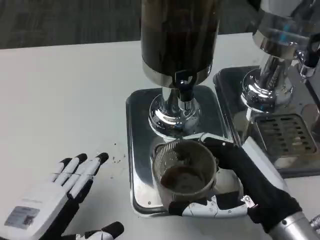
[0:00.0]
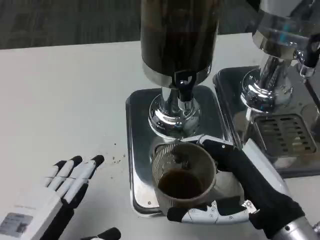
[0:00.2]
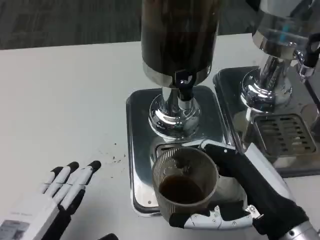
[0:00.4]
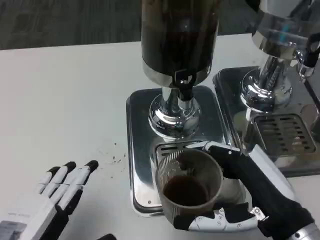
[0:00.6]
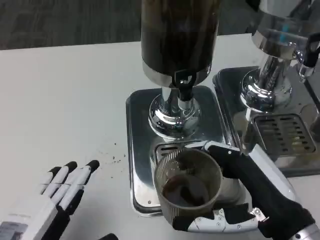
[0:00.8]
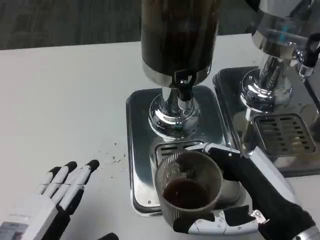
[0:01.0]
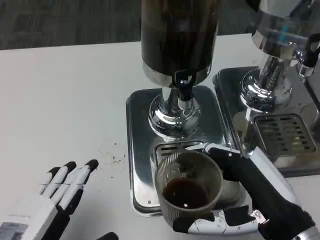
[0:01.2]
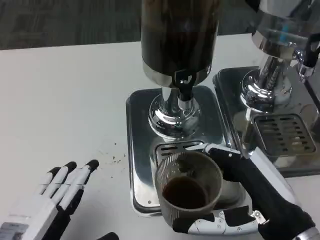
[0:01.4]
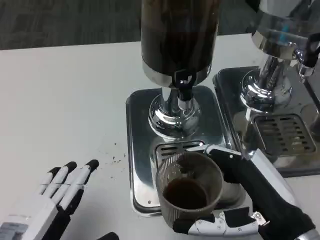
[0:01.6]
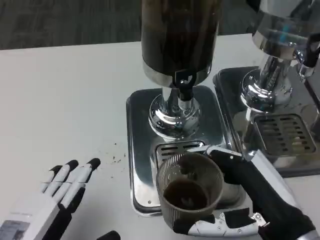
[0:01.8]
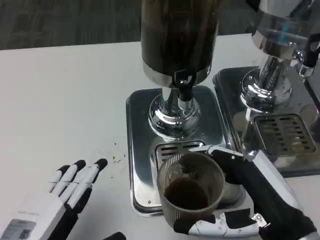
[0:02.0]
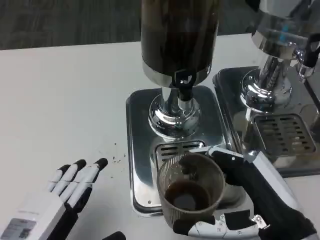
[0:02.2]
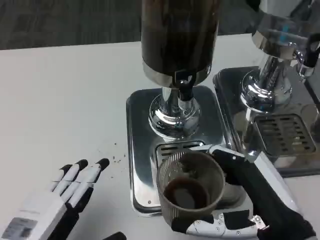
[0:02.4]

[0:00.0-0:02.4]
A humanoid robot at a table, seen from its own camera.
Task of the whole recording: Grasp the cup under the faucet to collect the drink, then remove the cup.
0:00.0 to 0:01.2: There are only small adjustments of the hands.
0:01.2 to 0:02.4: Both hands stay put.

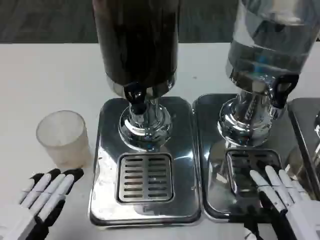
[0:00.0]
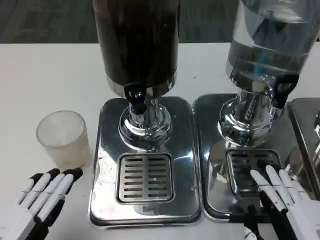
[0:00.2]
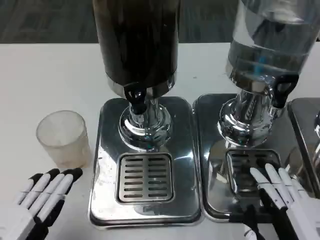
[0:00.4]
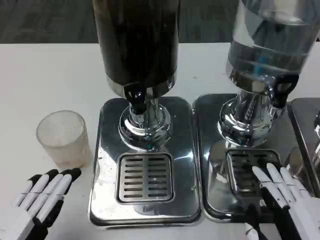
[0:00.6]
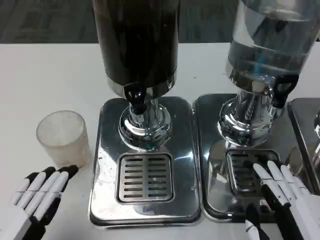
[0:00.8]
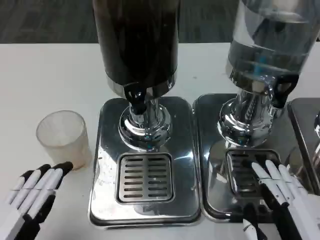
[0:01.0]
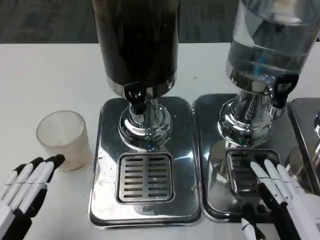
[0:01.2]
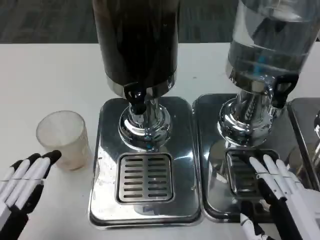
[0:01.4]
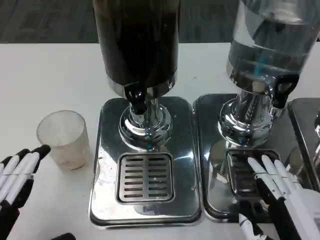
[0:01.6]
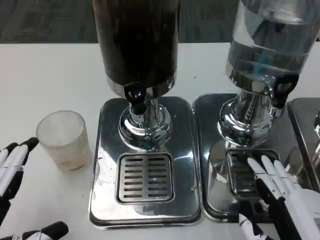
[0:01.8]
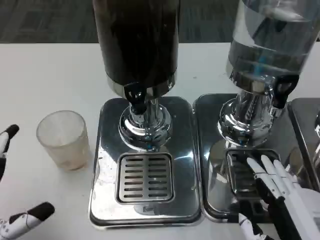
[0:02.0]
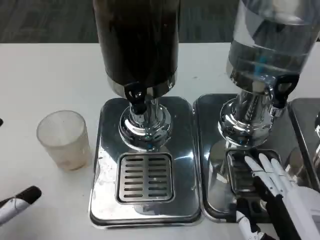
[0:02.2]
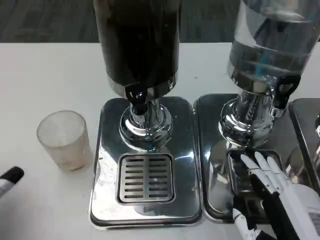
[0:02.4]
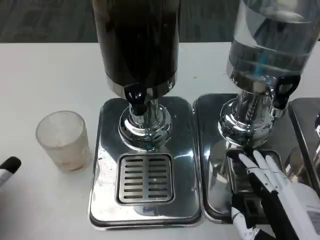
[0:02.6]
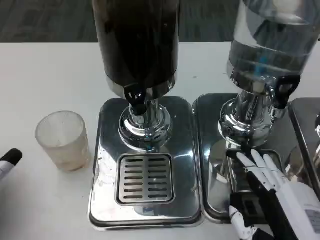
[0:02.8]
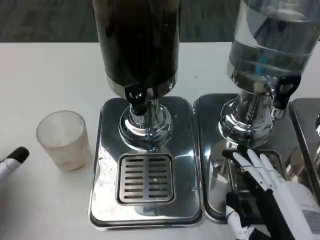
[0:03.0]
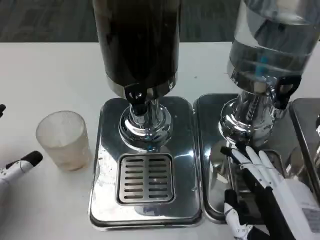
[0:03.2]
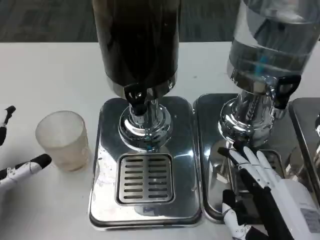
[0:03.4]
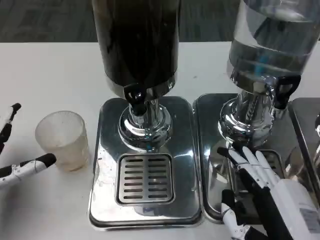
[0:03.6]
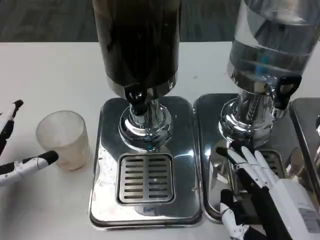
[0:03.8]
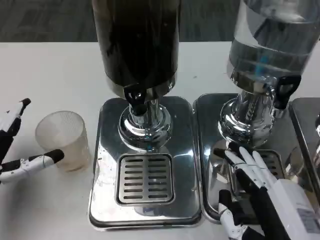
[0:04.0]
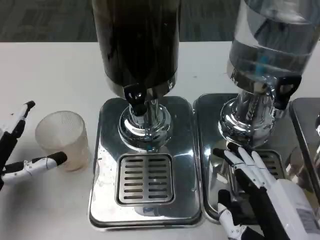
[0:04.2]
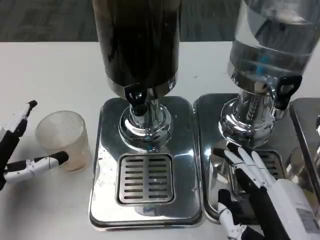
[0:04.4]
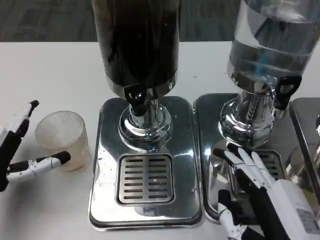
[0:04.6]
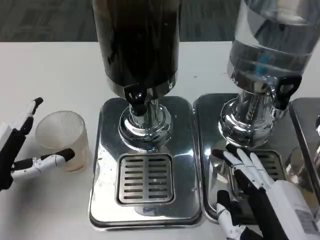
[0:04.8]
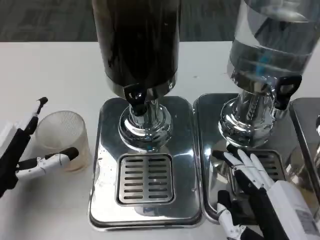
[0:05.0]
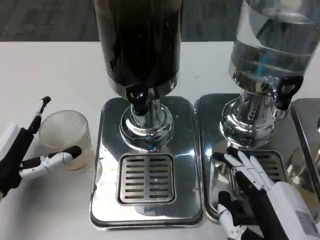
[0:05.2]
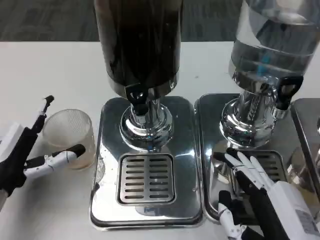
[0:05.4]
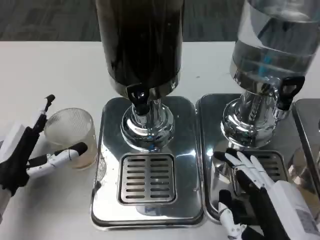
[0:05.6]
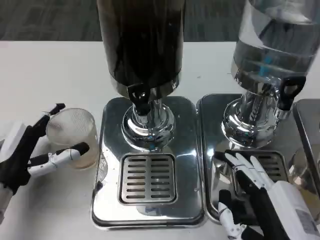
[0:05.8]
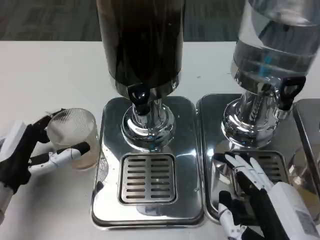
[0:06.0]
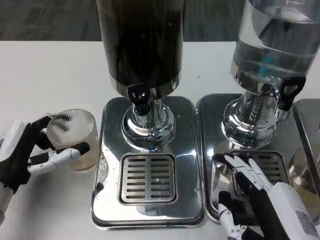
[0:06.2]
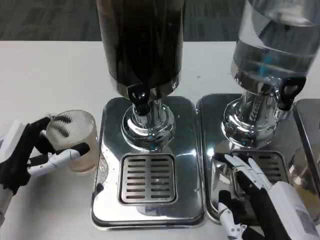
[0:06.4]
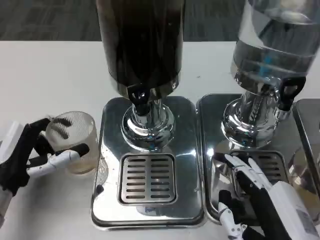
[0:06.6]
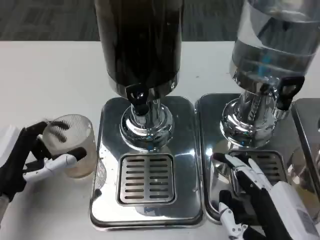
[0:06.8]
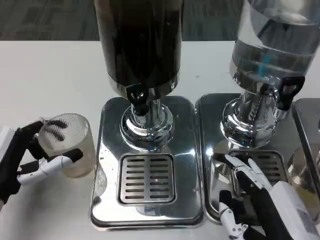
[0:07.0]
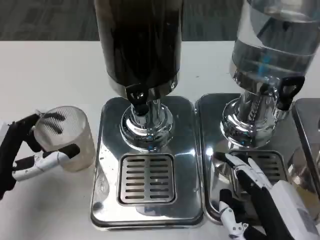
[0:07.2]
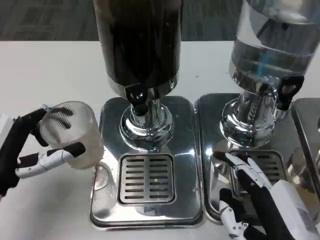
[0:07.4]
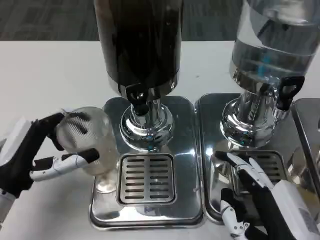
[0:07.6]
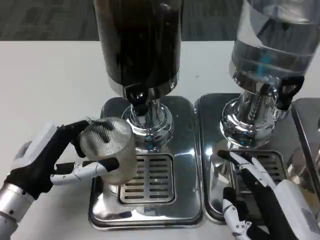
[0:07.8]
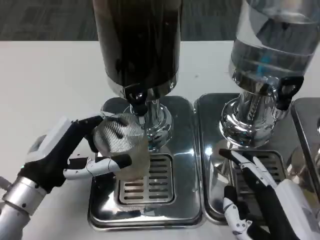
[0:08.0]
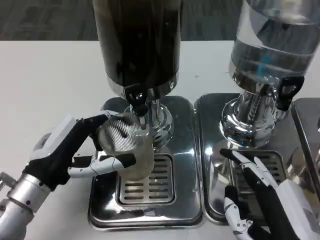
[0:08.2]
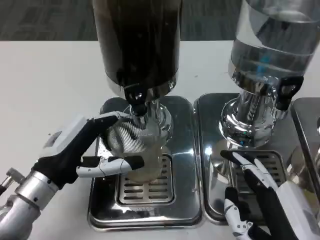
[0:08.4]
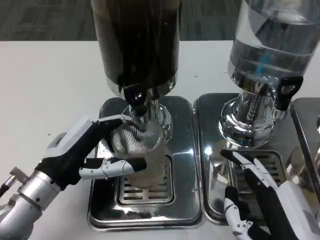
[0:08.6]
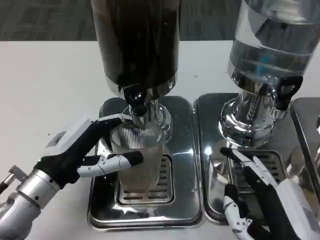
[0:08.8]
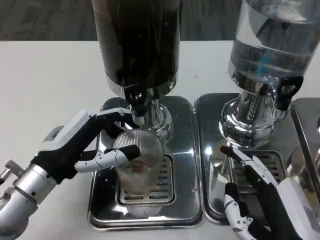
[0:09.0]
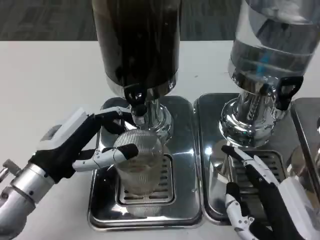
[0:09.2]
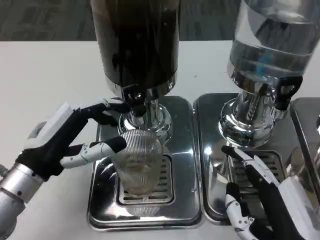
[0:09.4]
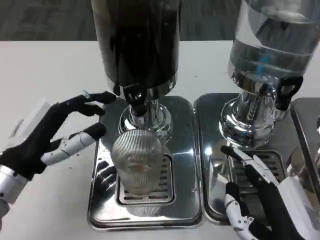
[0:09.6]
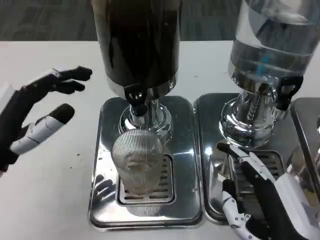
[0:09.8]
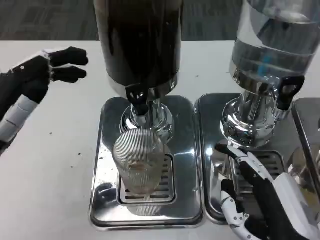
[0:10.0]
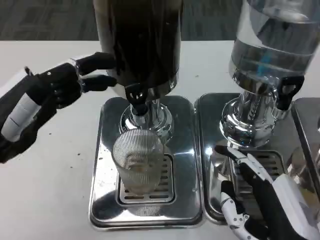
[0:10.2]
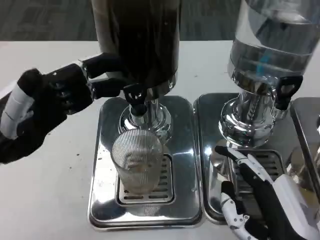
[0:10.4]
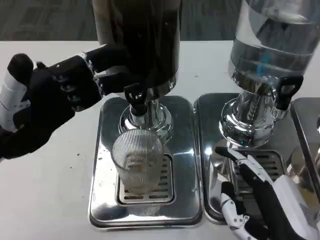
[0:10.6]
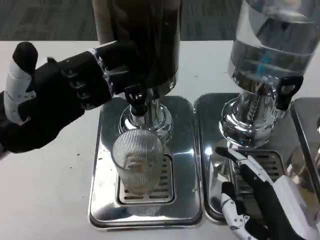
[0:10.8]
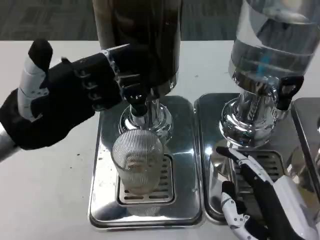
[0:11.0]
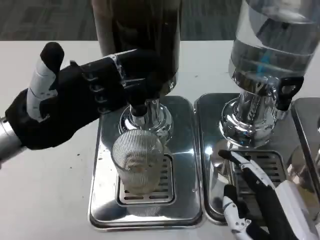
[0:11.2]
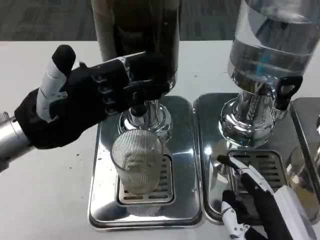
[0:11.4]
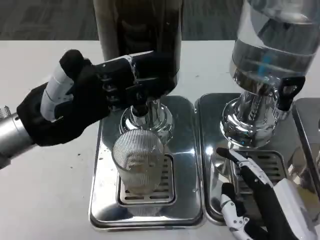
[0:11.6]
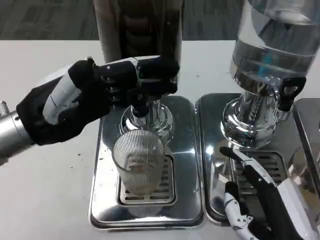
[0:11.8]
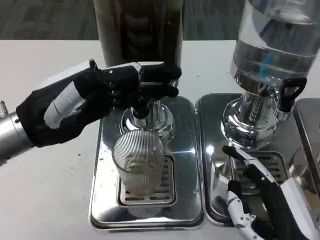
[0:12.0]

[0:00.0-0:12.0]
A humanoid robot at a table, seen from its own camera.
Task of the whole recording: Grasp the cup under the faucet to collect the drink, then remove the cup.
0:00.0 to 0:01.6: The hands stay close to where they were, moving slightly.
0:01.6 to 0:03.0: The left hand heads forward, covering approximately 10 cm.
0:03.0 to 0:04.4: There are only small adjustments of the hands.
0:07.6 to 0:09.0: The left hand shifts by some 5 cm.
0:09.0 to 0:10.4: The left hand shifts approximately 10 cm upward and to the left.
0:10.4 to 0:12.0: The left hand changes place by some 5 cm.

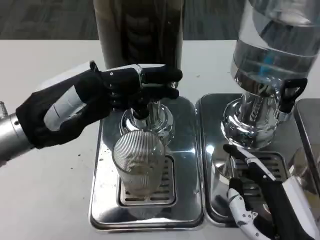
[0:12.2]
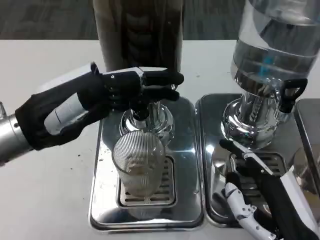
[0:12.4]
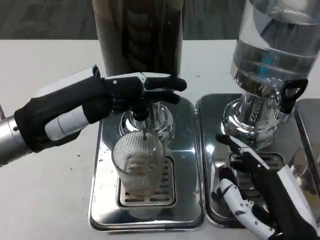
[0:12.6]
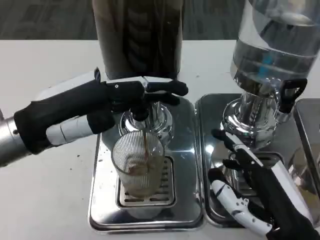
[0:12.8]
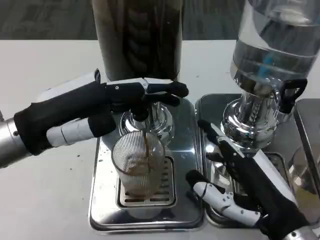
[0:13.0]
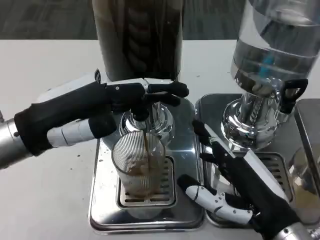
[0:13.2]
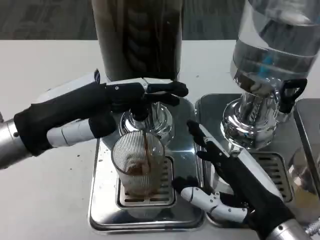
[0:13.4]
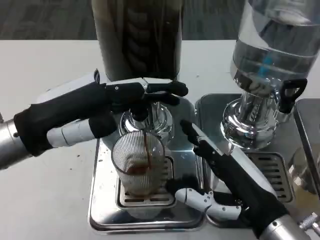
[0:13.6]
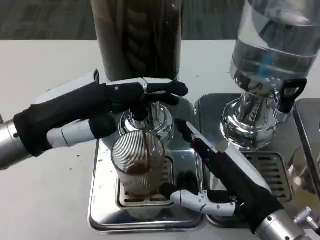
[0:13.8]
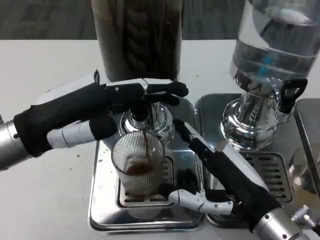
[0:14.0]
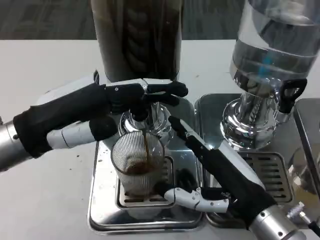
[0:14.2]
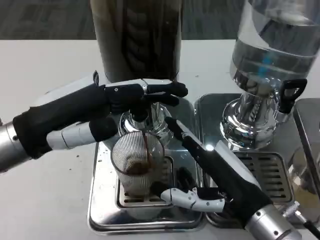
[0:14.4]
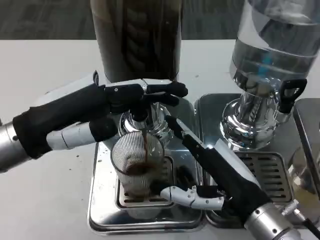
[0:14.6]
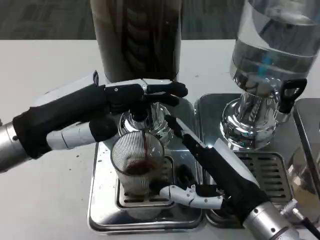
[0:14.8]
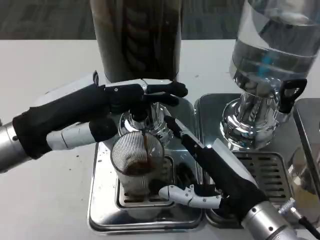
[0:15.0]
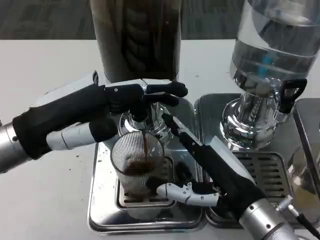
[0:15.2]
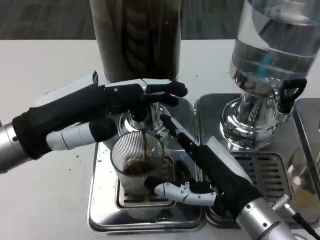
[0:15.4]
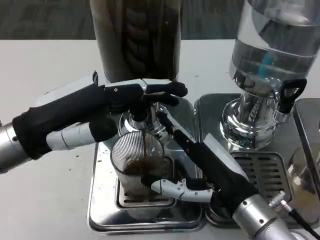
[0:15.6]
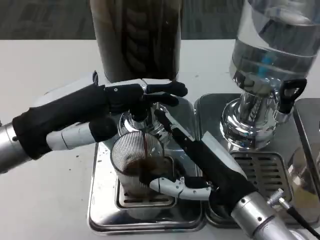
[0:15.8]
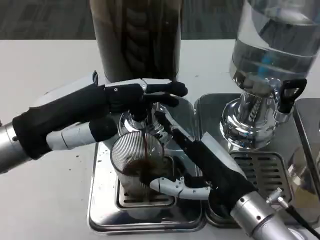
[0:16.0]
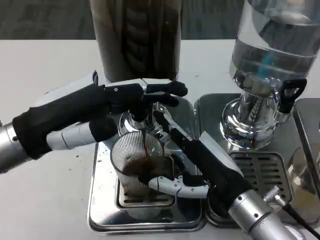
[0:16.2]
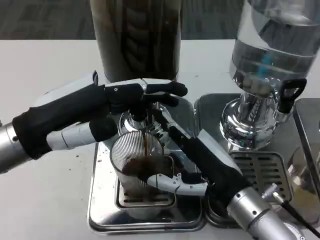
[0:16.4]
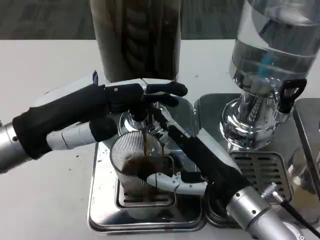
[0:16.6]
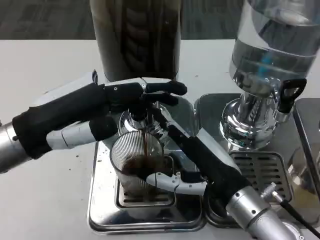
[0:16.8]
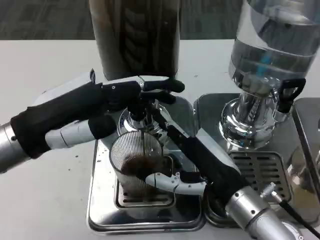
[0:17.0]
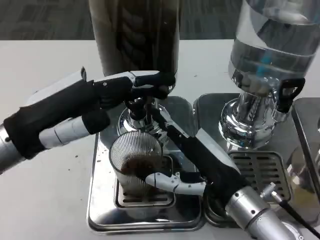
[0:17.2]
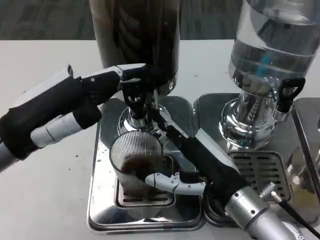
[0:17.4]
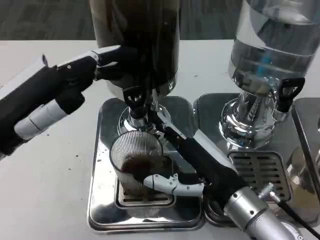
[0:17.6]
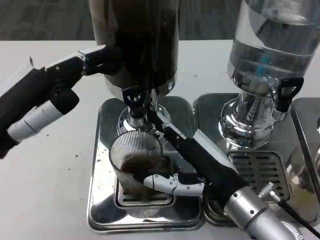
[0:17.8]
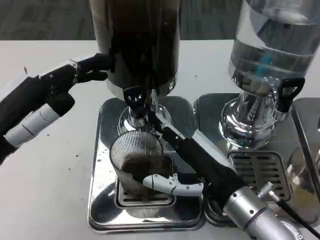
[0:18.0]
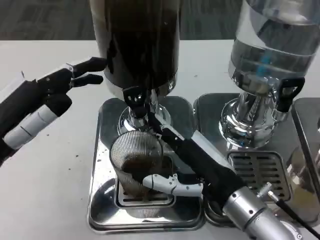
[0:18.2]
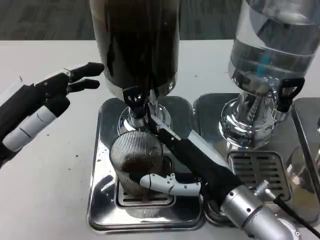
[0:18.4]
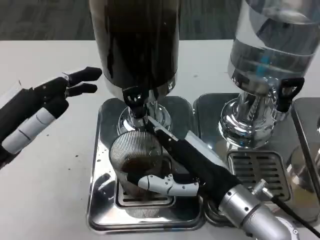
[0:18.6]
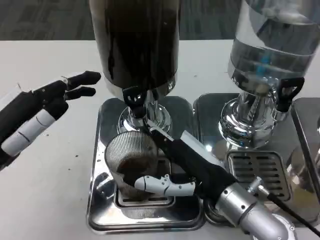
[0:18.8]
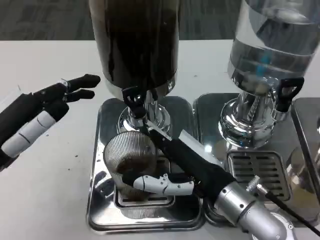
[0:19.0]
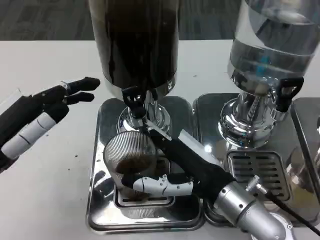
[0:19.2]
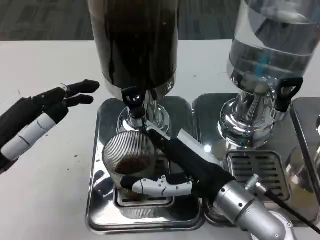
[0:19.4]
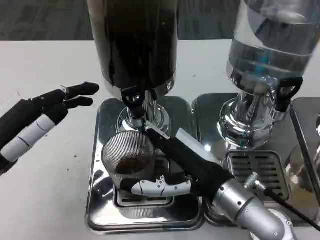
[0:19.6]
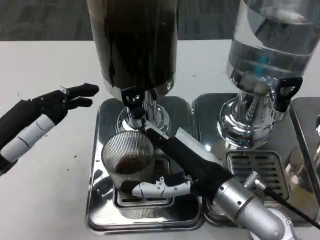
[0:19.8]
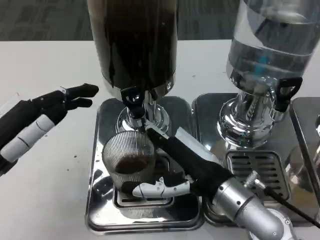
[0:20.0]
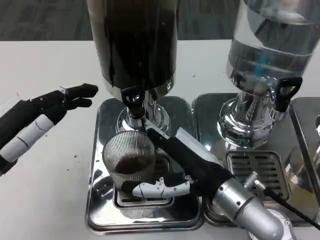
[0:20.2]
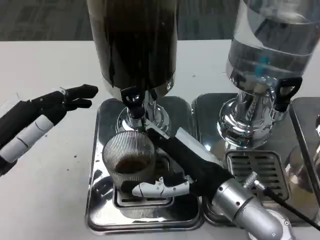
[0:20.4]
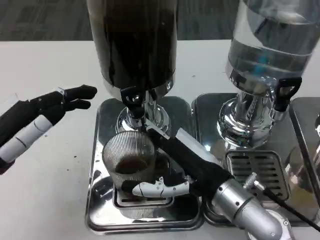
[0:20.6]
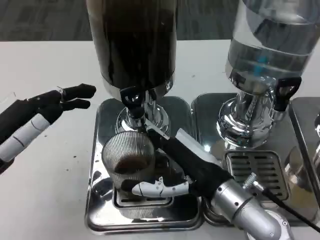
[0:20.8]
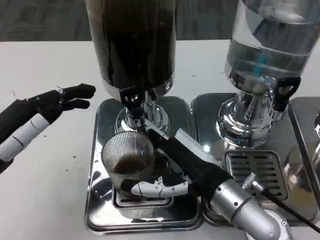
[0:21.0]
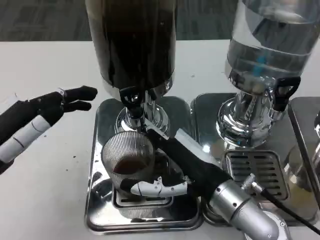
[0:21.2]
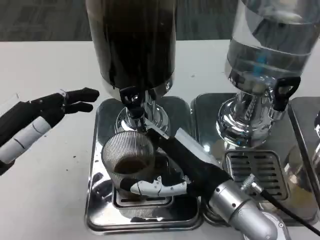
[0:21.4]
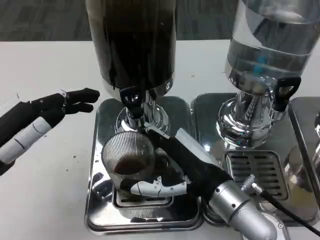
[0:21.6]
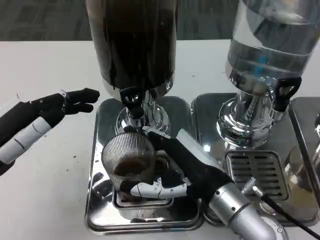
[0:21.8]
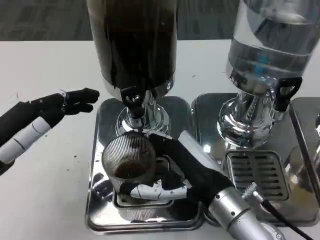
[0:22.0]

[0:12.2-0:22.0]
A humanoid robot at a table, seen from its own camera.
Task of the whole recording: Grasp the cup under the faucet to collect the drink, then remove the cup.
0:12.2 to 0:13.6: The right hand shifts approximately 5 cm forward.
0:13.6 to 0:16.4: There are only small adjustments of the hands.
0:19.2 to 0:20.6: Both hands stay put.
0:20.6 to 0:22.0: The hands move only a little.
